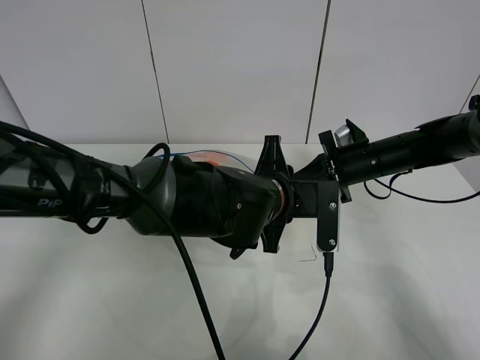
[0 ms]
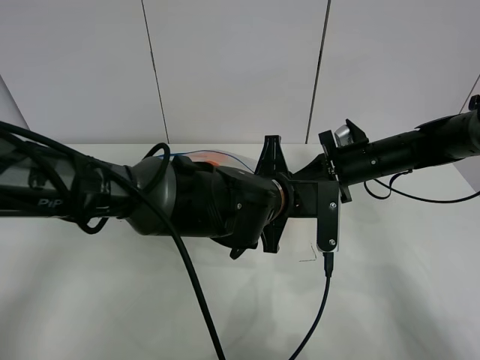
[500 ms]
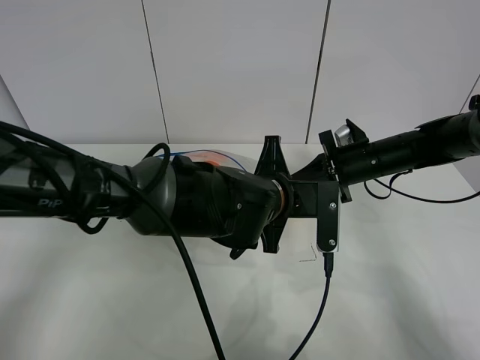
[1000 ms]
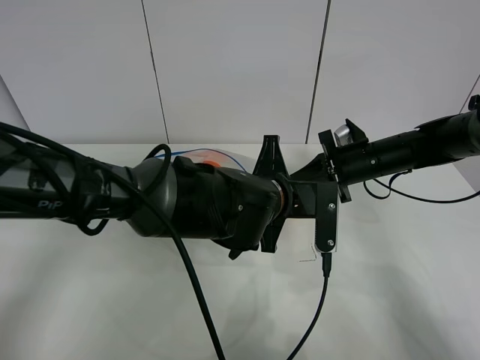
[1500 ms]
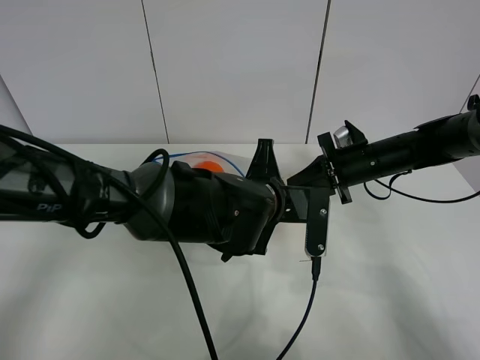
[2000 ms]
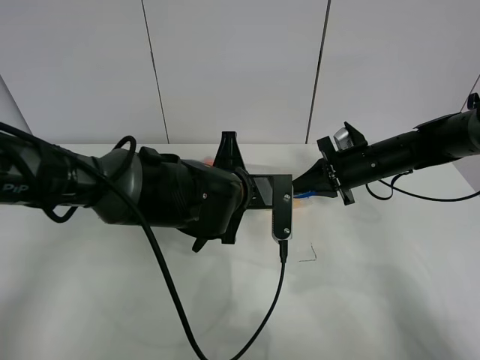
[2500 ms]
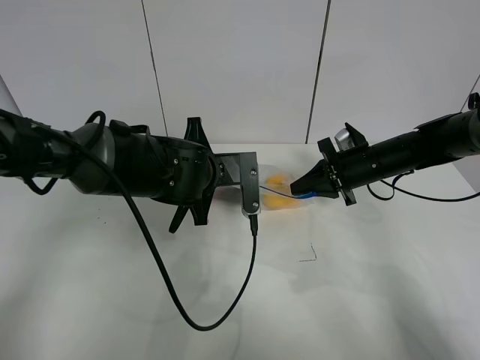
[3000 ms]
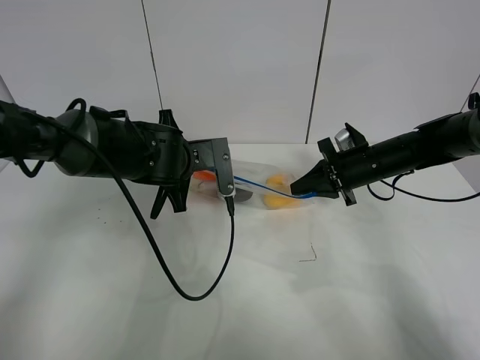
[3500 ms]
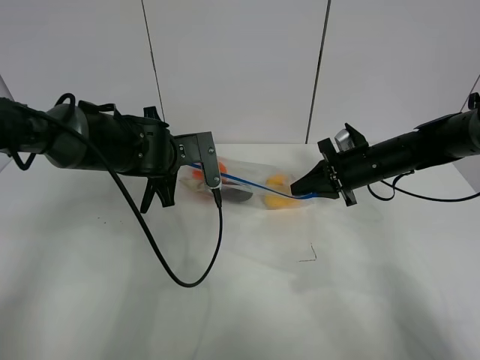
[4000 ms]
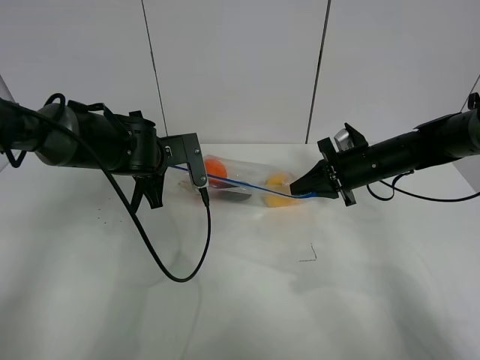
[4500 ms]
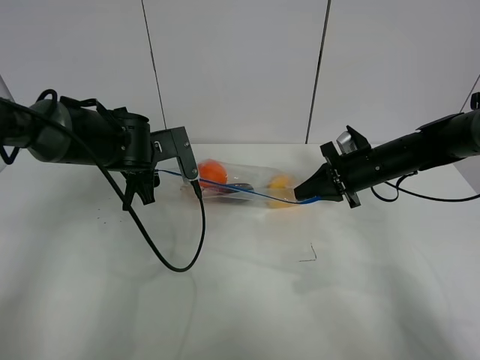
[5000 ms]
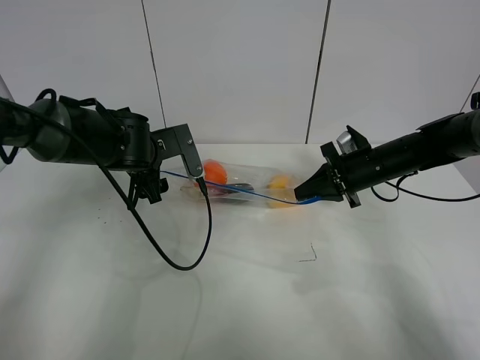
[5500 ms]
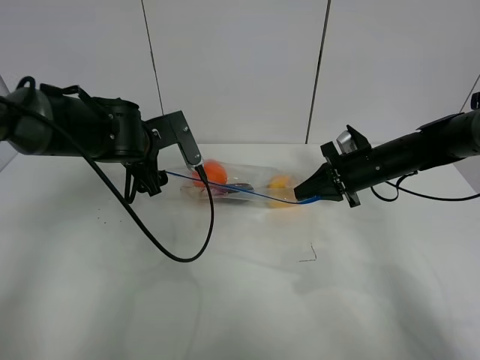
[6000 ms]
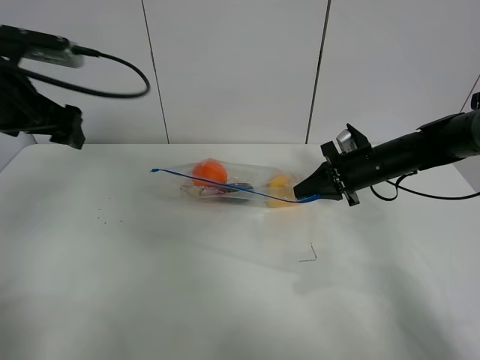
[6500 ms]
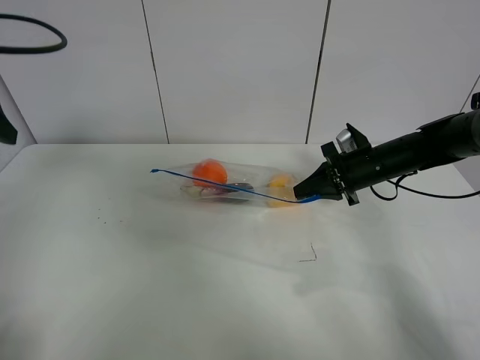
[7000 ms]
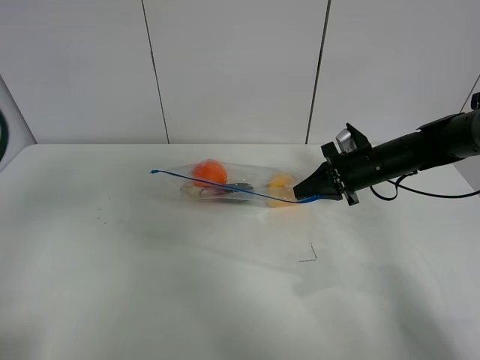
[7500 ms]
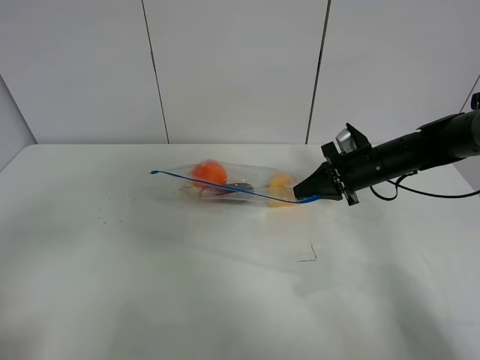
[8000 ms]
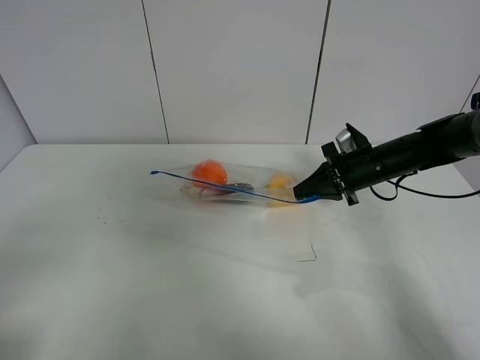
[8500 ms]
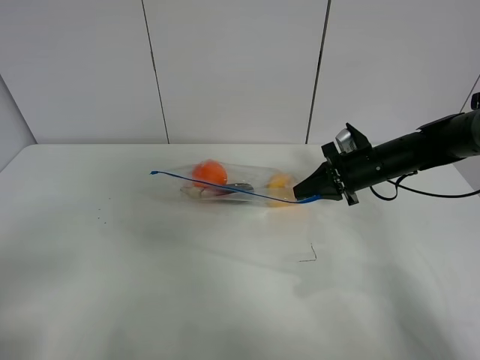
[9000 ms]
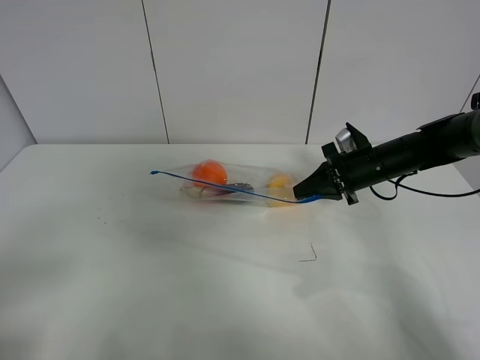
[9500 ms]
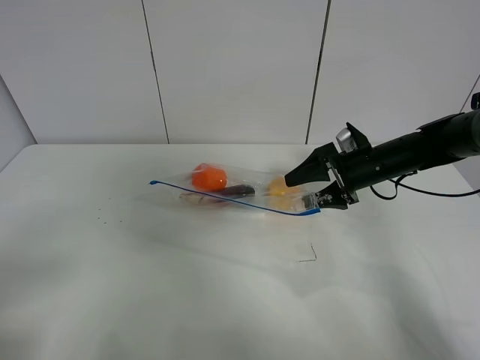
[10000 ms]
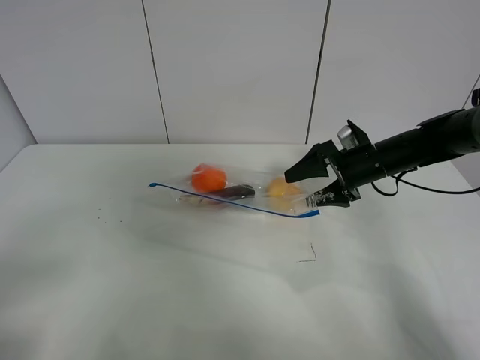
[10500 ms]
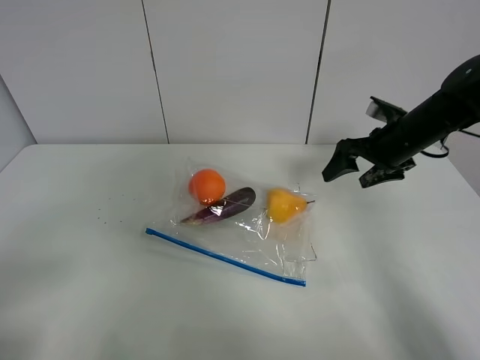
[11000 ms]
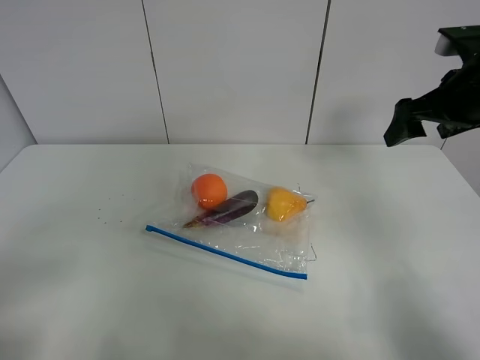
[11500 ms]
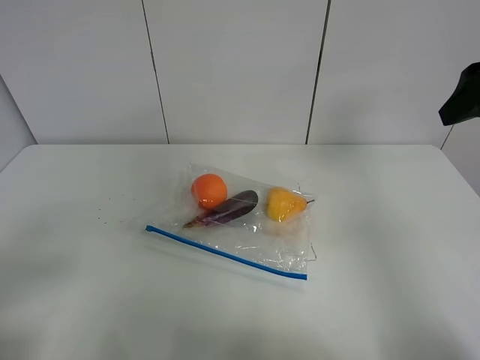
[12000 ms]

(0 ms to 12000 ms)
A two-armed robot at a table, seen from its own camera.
Step, 0 ms - 5000 ms: Pull the fruit bag with left gripper.
0 ms - 2000 ms: The left gripper closes.
2000 ms - 4000 ms: The left gripper moves to the left and forward, about 15 cm.
4000 ms - 6000 ms: The left gripper opens its fingers.
6000 ms - 8000 ms: The left gripper is displaced backward and to the left by roughly 35 cm.
8000 ms - 10000 ms: The right gripper opens up.
10000 ms - 12000 ms: The right gripper goes some 30 cm upward and backward.

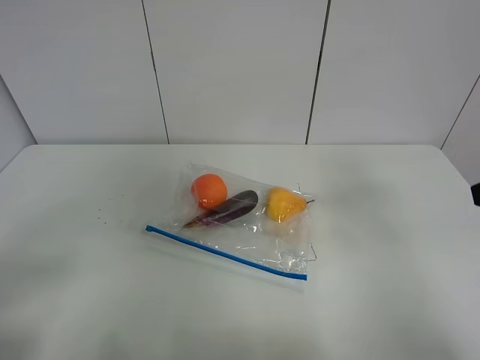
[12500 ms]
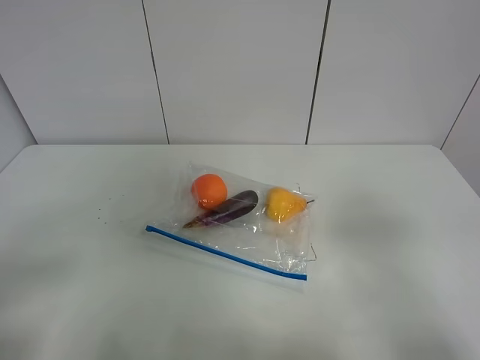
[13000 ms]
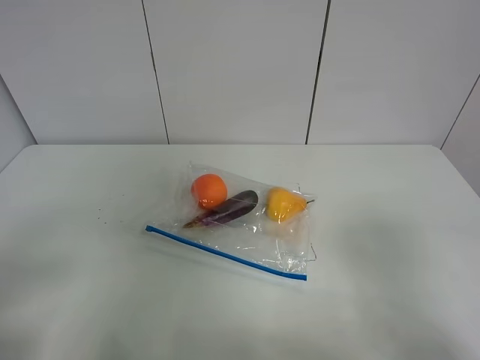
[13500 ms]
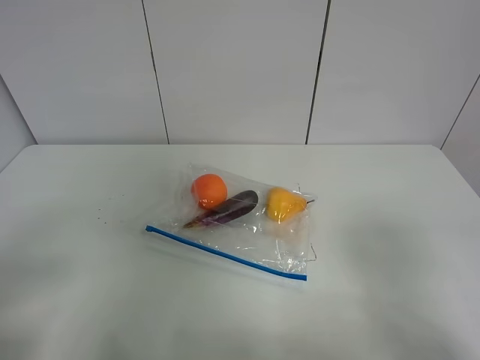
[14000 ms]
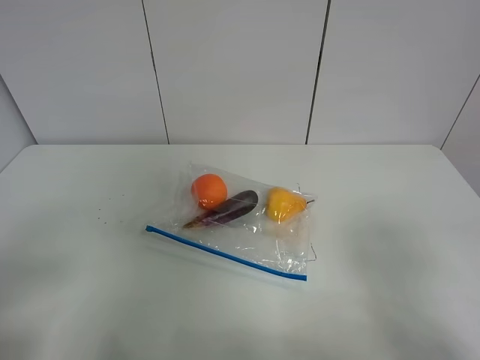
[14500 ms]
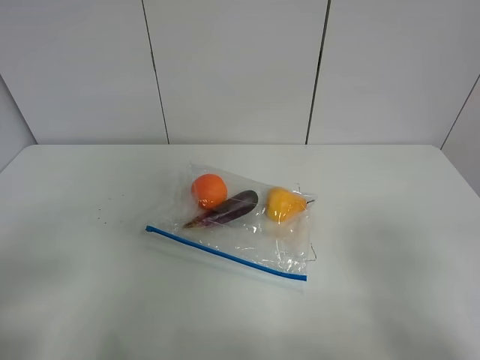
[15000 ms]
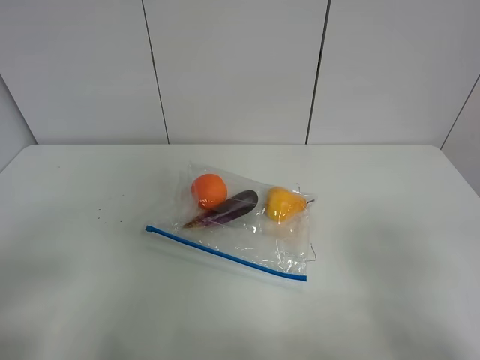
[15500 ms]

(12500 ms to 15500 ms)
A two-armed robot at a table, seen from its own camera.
12500 ms - 14000 ms: The right gripper heads backward and downward, covering about 15 cm.
14000 ms - 15500 ms: Both grippers stay put.

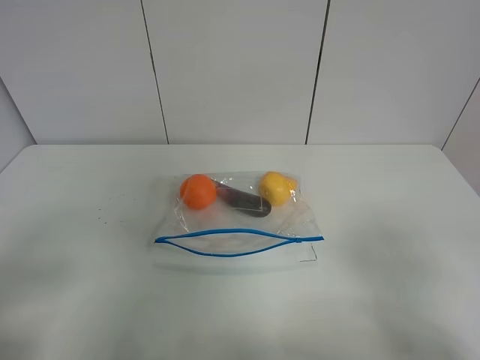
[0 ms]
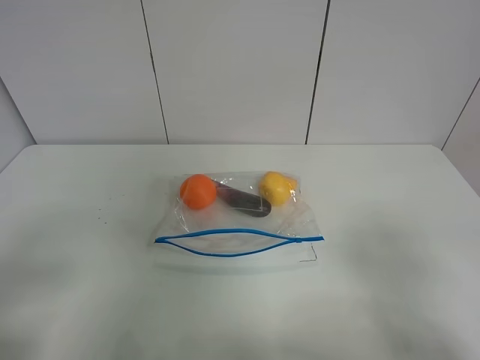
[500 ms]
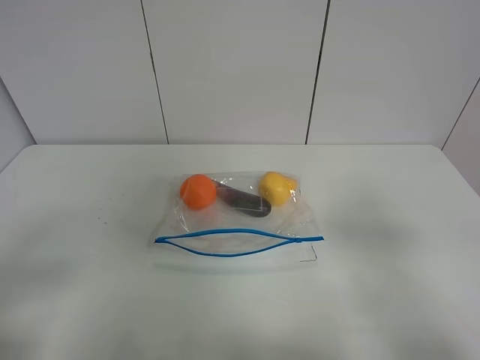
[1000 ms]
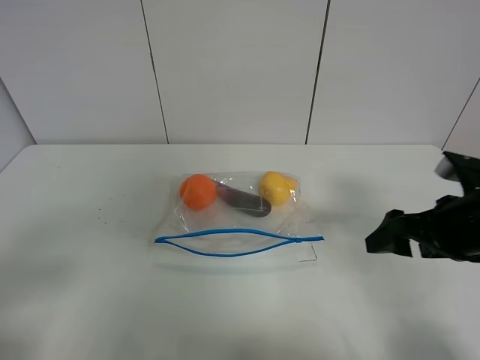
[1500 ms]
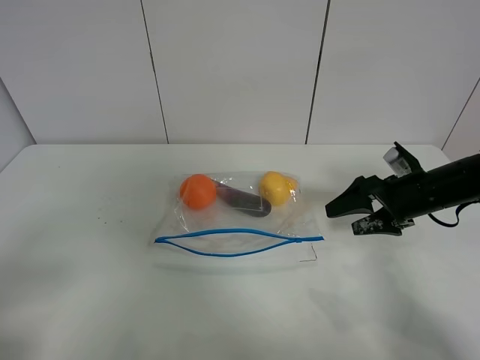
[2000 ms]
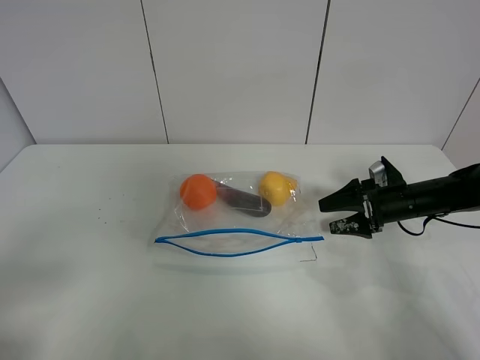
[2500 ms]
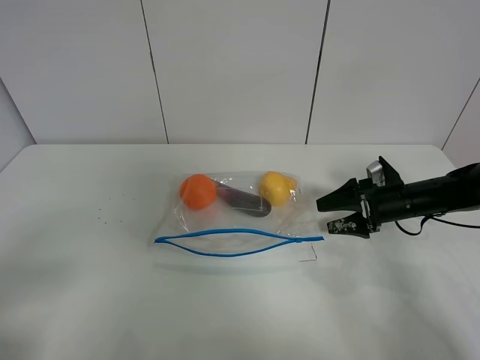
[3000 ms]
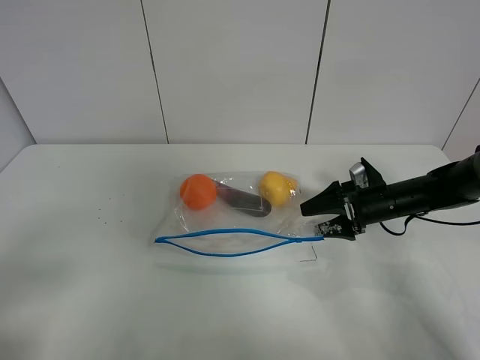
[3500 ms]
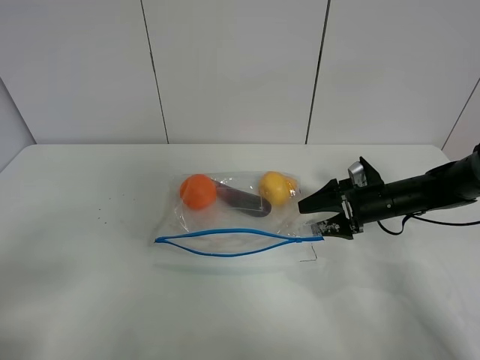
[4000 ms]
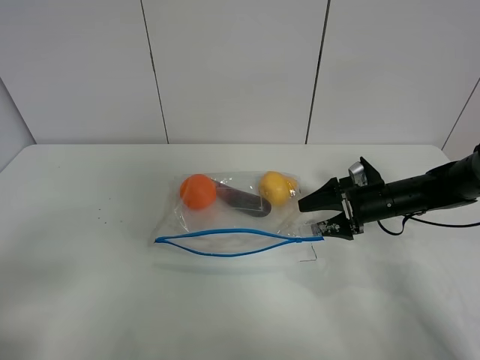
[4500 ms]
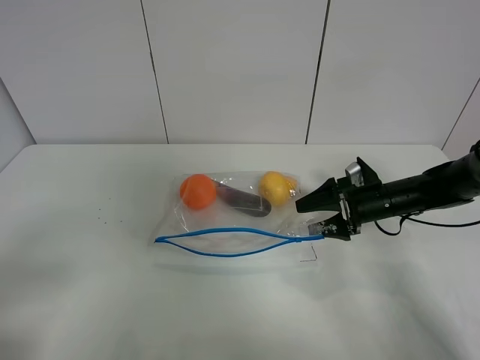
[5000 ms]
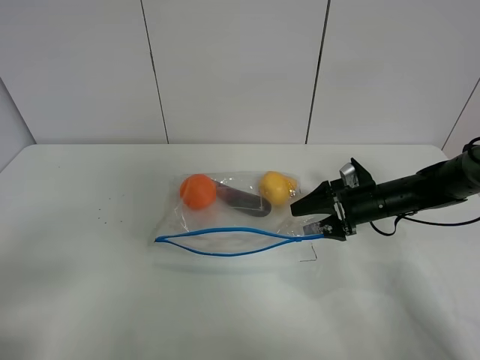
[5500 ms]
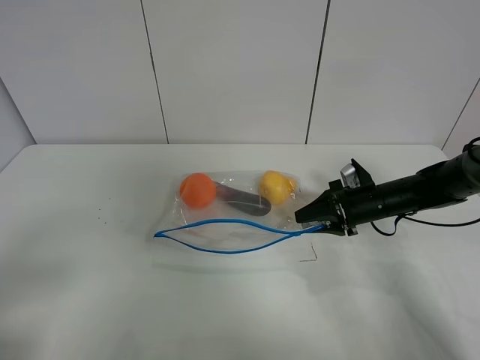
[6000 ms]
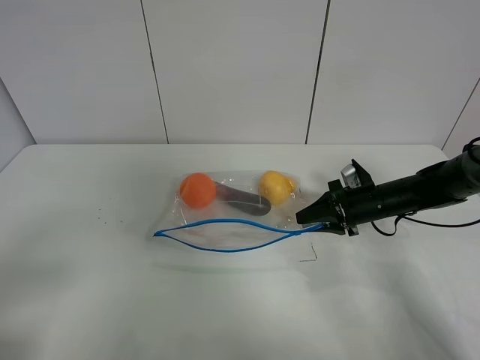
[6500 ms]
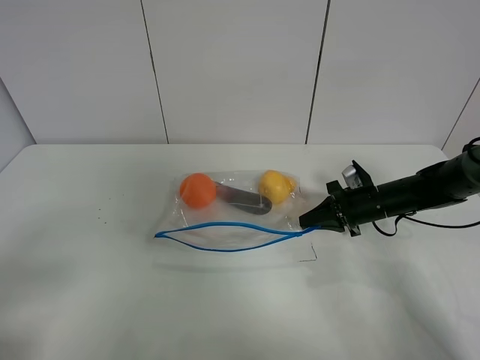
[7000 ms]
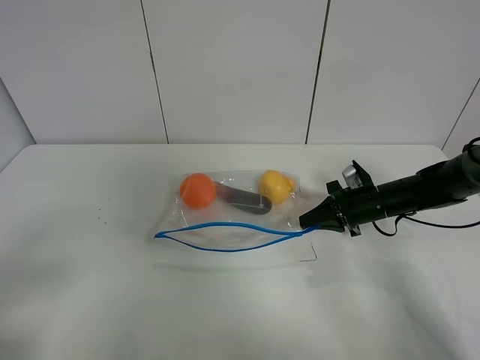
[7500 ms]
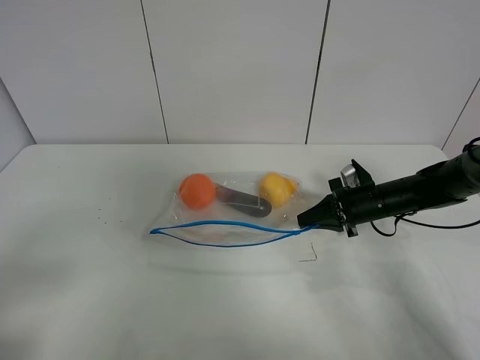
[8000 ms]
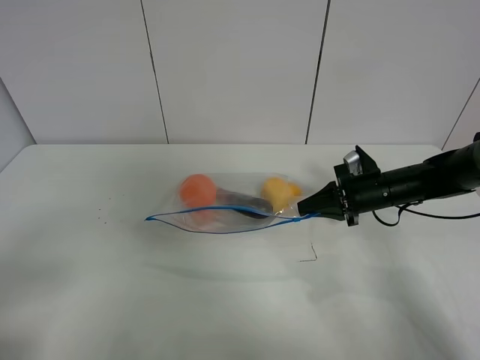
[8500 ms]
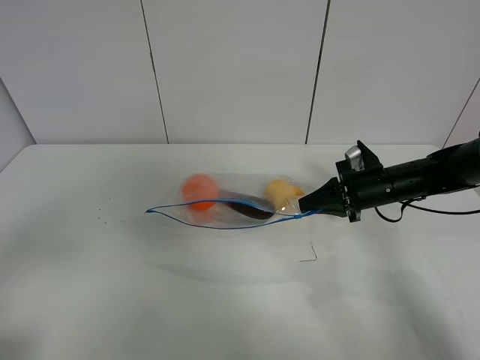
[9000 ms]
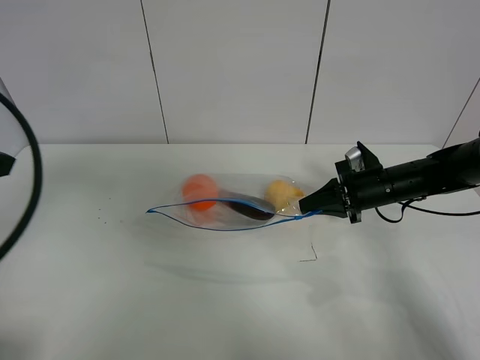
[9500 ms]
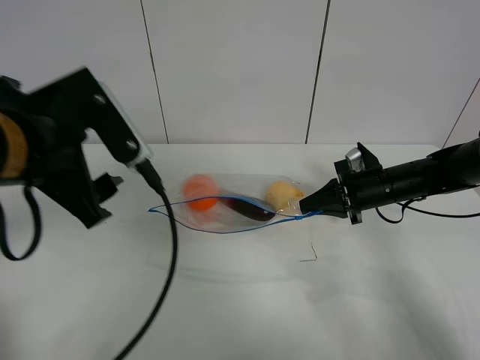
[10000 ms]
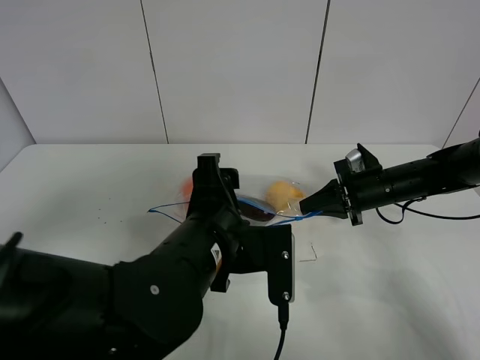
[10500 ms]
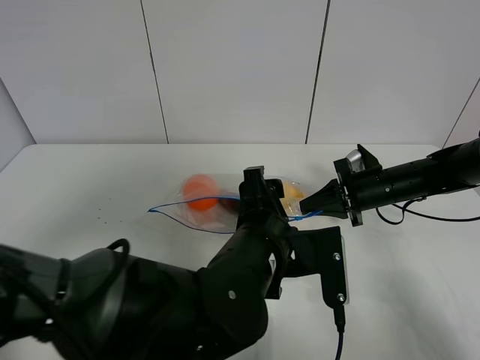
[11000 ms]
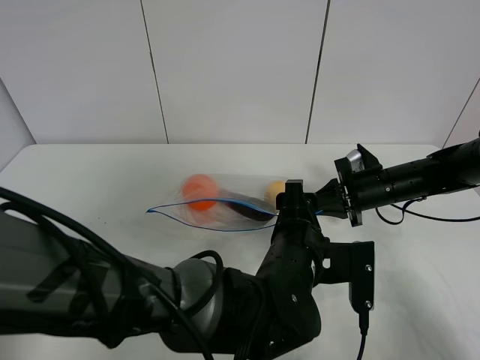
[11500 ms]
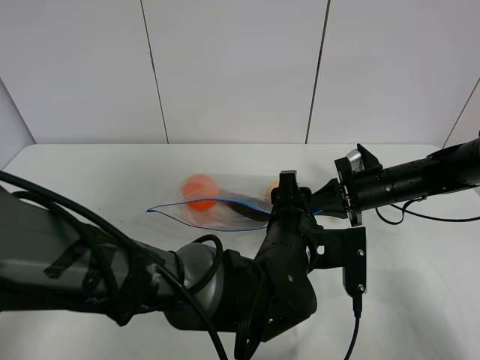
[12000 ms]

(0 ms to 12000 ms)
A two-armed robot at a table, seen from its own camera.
Step, 0 ms - 6500 ms: Grasp the fruit bag with right gripper.
Step, 7000 ms - 9500 ms: Lift the fruit bag with your right gripper.
0 ms - 2000 ms: The right gripper travels forward and downward by some 35 cm.
2000 ms - 4000 ms: The right gripper shifts some 5 cm downward.
4000 ms - 6000 ms: The right gripper closes its fingers.
6000 ms - 8000 ms: The right gripper closes its fingers.
8000 ms - 10000 ms: The left gripper travels forward and to the right by about 25 cm.
10000 ms - 12000 ms: The left gripper goes roughly 25 cm to the right and downward.
